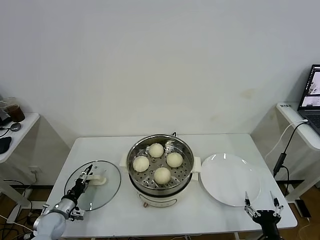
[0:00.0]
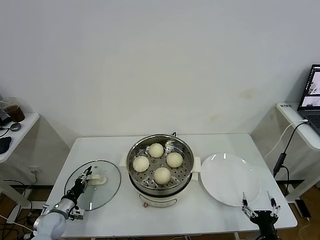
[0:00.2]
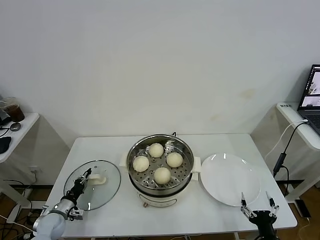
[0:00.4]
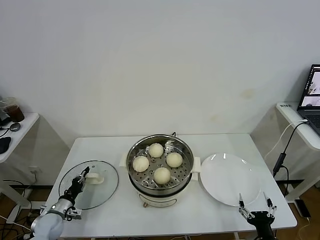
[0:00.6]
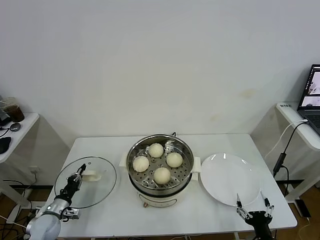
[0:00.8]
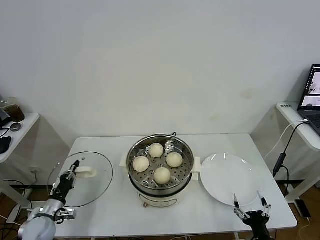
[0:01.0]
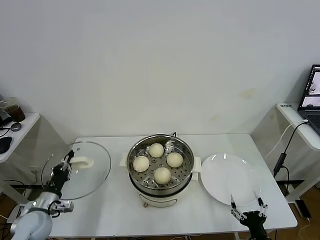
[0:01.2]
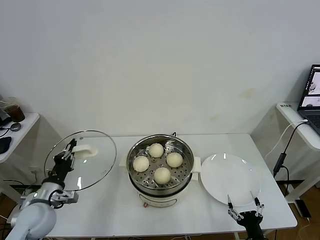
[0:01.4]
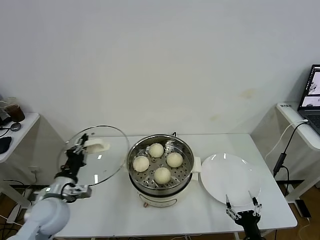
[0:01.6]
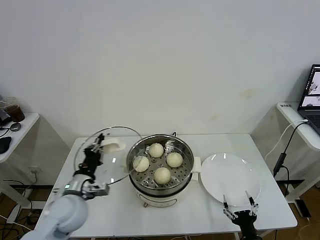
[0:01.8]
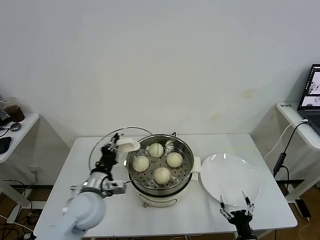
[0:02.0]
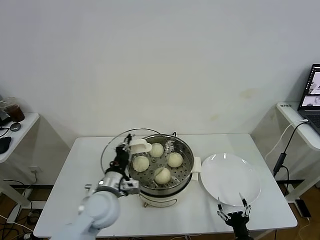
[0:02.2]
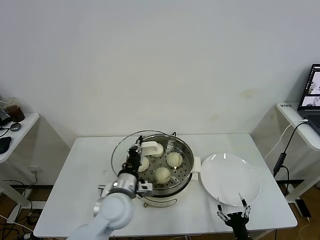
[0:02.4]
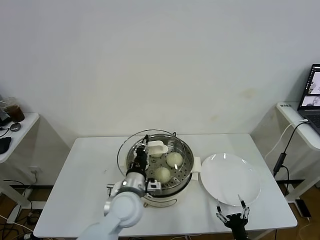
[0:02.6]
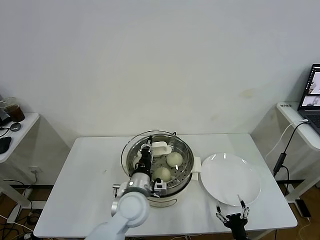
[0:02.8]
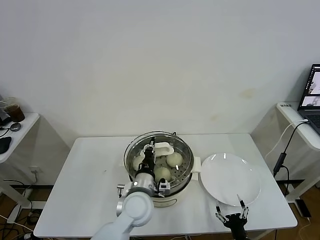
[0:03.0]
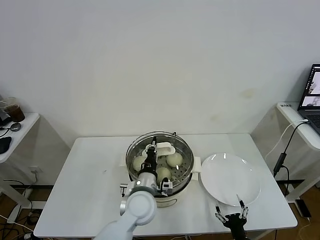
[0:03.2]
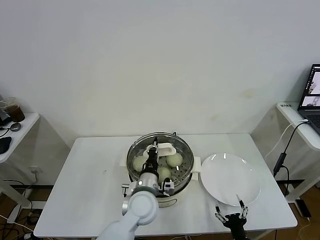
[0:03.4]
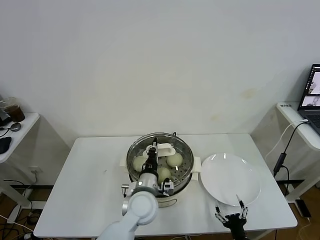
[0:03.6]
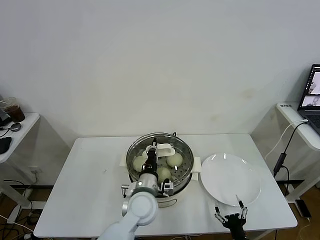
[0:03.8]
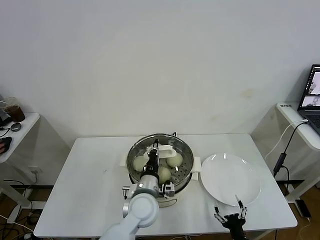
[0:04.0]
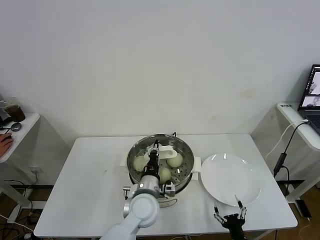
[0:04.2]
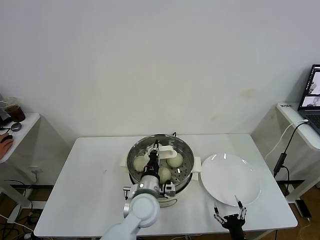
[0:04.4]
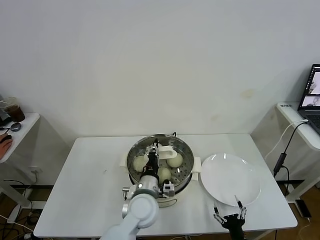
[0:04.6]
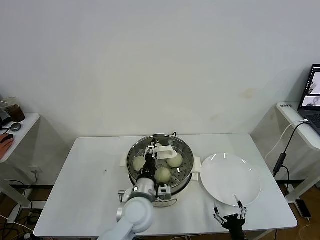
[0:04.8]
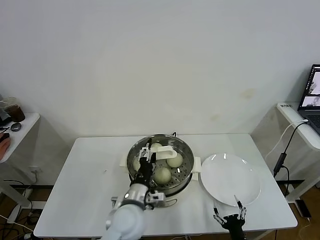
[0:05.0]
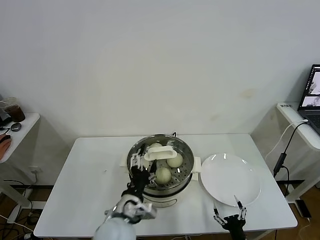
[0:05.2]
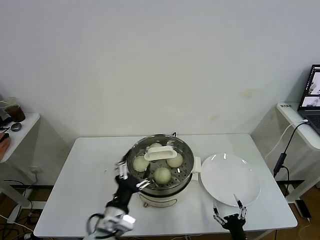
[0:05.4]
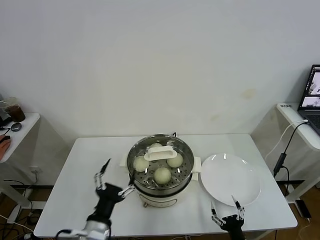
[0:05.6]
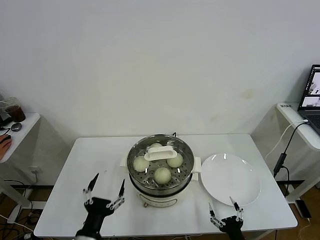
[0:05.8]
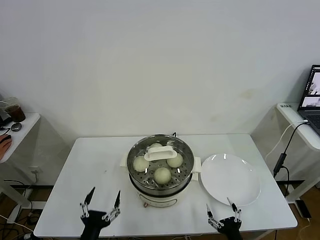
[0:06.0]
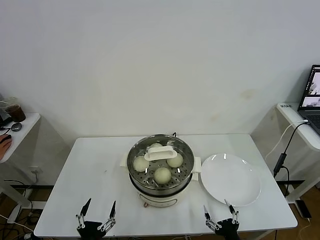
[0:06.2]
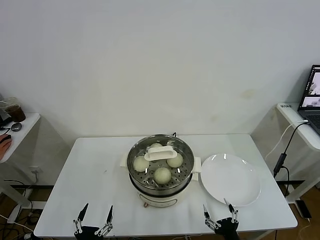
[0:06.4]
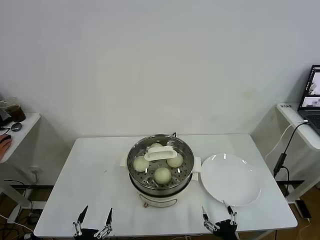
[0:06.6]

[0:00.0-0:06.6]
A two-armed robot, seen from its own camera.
Task of the whole recording: take steamed baozi put them in steamer.
Step, 0:00.8 to 0:05.0: Place the pot lid on the steamer with left gripper.
0:00.0 to 0:01.6: The left gripper moves upward and to the right, approximately 25 cm, and closes its fingers.
0:01.6 to 0:03.2: The left gripper heads to the right, covering some 25 cm, while the right gripper ends up about 5 cm from where it was.
0:03.2 to 0:05.0: The left gripper opens up.
0:05.0 to 0:06.6: The left gripper travels backward, to the left and downward by roughly 30 cm; the right gripper ends up about 5 cm from where it was.

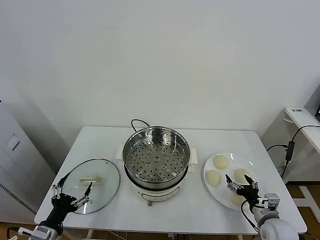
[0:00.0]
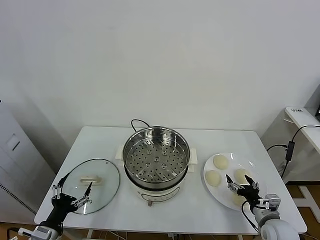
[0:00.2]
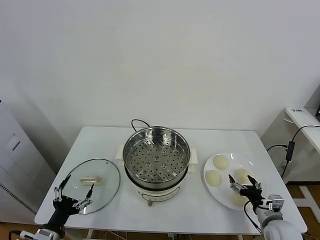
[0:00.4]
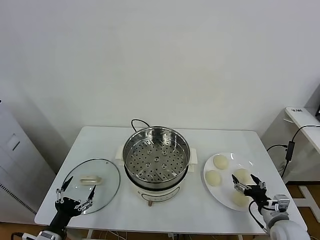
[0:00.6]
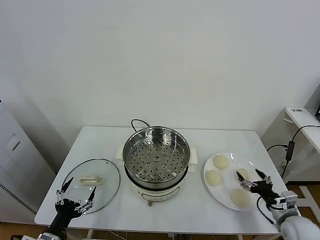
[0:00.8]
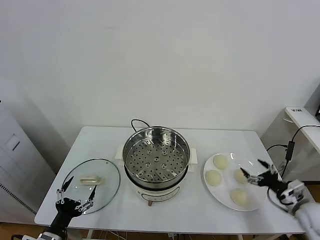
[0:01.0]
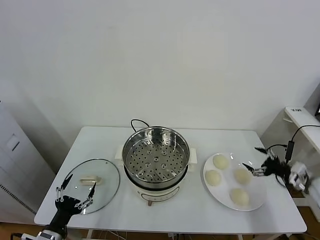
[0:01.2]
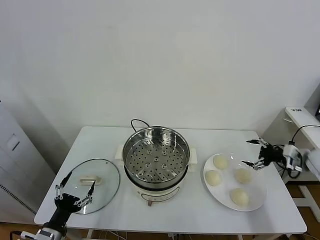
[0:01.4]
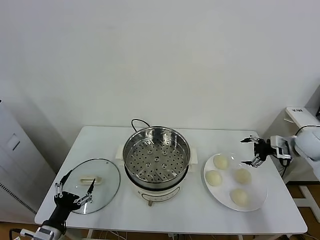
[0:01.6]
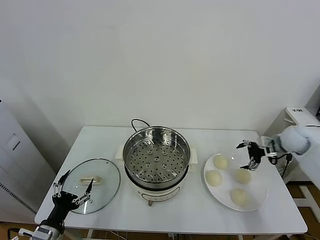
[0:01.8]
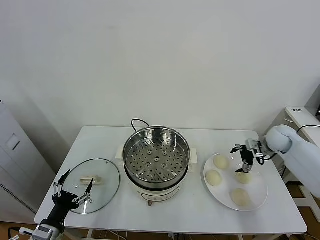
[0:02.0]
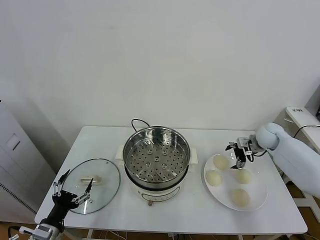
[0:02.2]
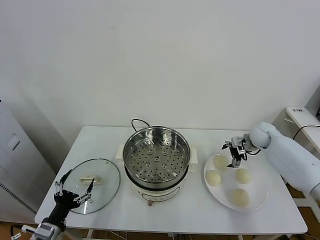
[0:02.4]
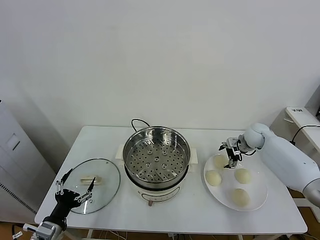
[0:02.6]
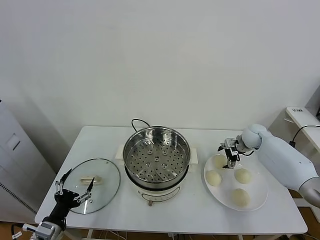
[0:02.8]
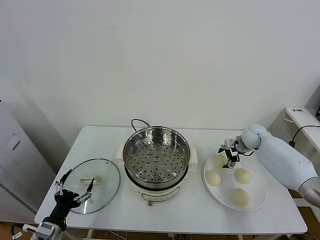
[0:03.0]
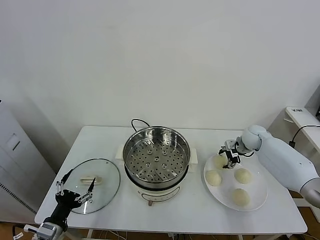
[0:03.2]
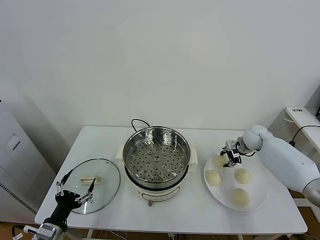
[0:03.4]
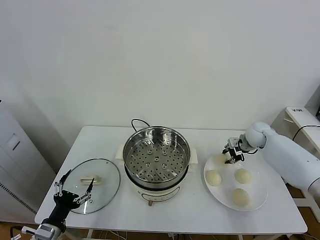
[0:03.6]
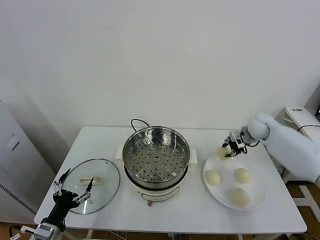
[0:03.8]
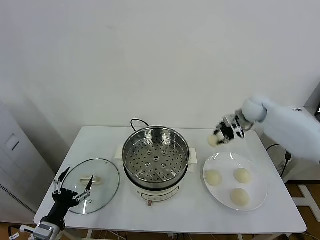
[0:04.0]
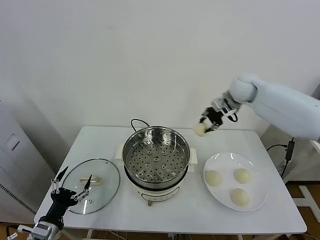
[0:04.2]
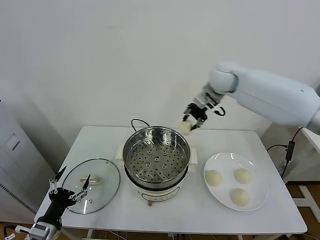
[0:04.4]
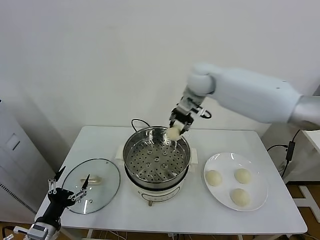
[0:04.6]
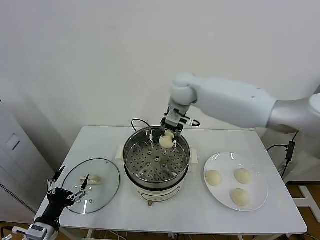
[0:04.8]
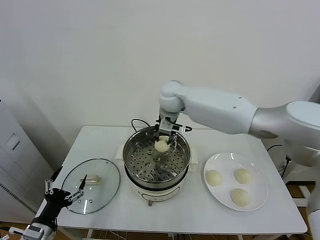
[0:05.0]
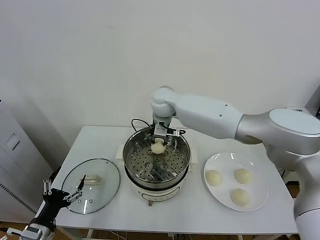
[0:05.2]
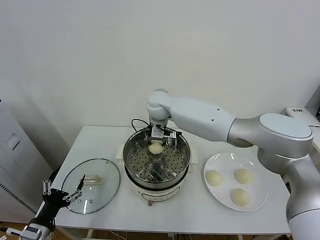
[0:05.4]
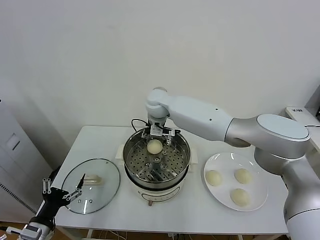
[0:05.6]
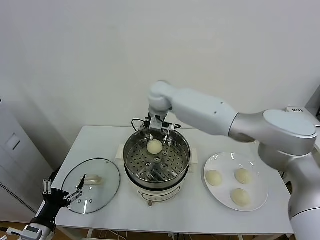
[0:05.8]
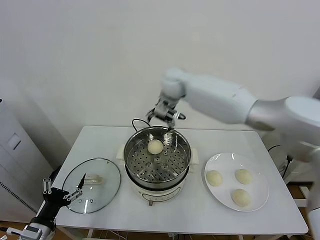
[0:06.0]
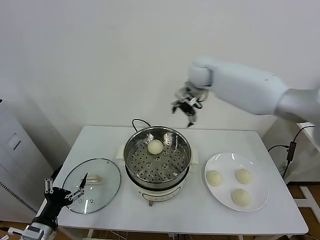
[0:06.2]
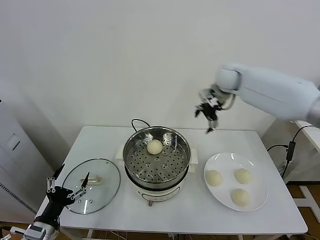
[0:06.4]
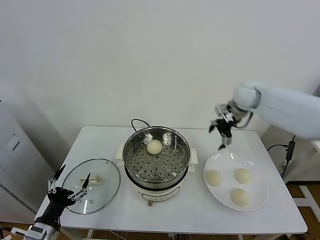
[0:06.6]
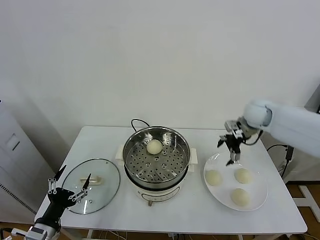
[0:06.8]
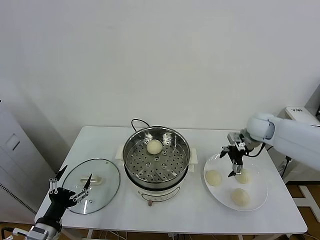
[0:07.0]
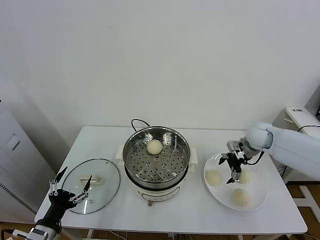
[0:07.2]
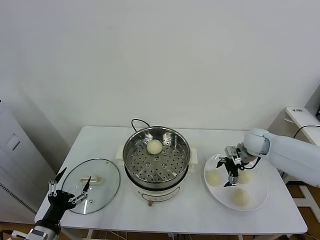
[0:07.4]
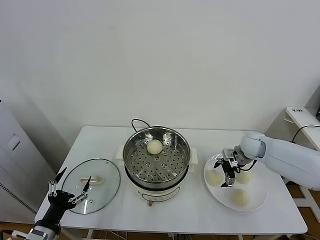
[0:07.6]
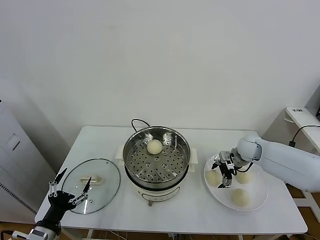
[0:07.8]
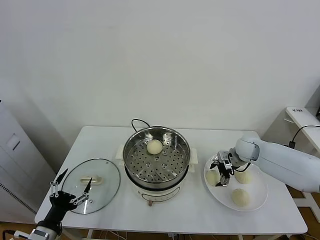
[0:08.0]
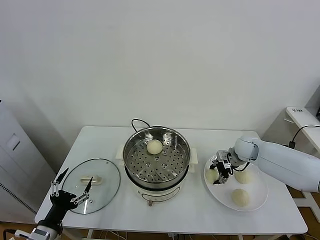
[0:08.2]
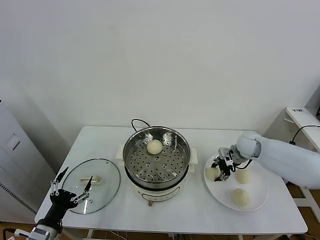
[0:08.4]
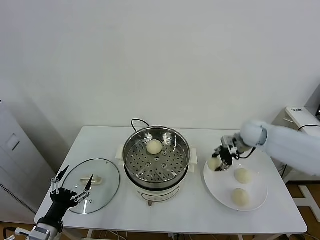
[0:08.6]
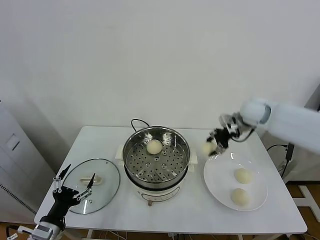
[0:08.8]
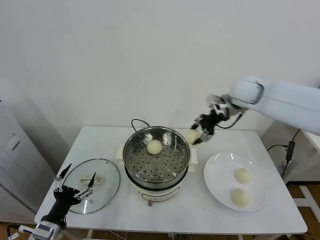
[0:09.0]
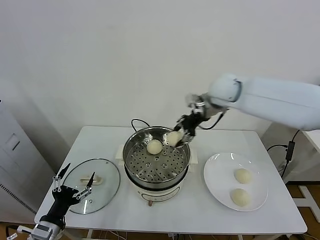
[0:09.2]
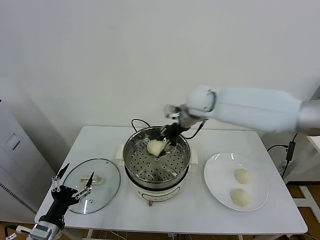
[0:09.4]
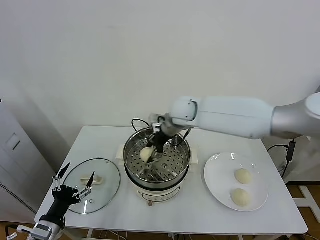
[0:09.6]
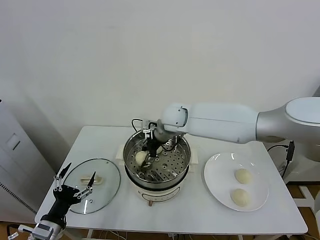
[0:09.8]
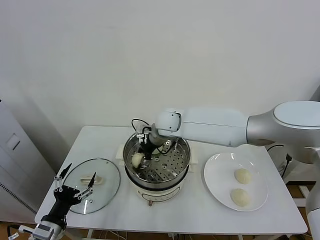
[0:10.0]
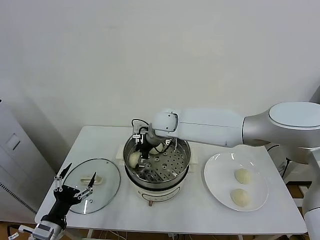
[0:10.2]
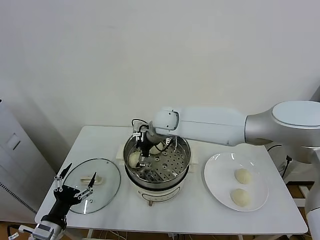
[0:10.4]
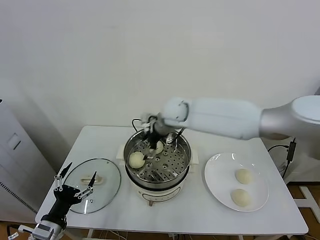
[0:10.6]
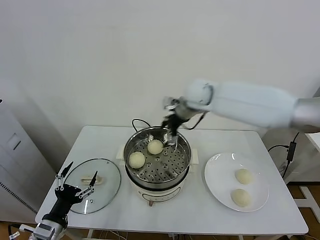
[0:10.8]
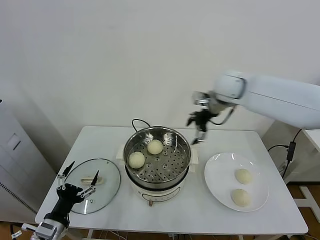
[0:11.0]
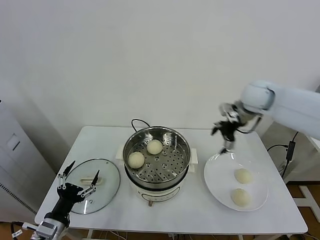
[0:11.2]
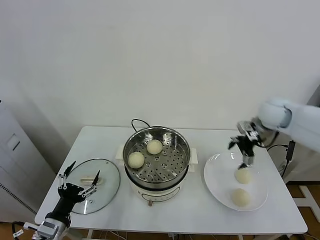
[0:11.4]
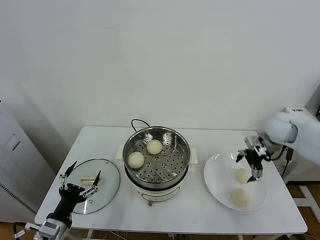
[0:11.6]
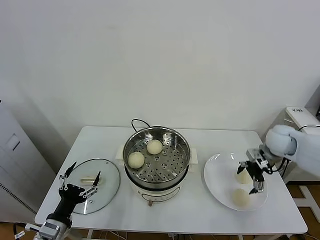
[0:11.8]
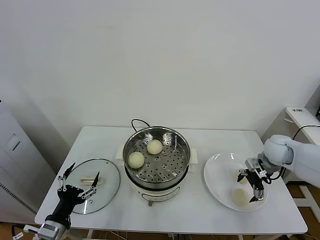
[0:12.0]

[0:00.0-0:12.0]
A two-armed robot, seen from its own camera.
Task of the whole recording: take steamed baozi put them in steamer.
Step, 0:00.0 to 0:03.2: Grasp the baozi in the plate with right gripper.
Step, 0:03.4 to 0:05.6: Place the baozi on the steamer with right gripper.
Step, 0:05.8 to 0:08.2: Grasp the baozi in the plate with right gripper.
Step, 0:08.4 to 0:10.4: Place the baozi on the steamer with right gripper.
0:01.6 to 0:03.0: The right gripper shifts roughly 15 cm to the left, forward and downward.
0:03.0 to 0:04.4: The right gripper moves upward and to the left, roughly 35 cm, and closes up.
0:04.4 to 0:06.0: The right gripper shifts some 5 cm to the left, and opens up.
0:06.0 to 0:07.6: The right gripper travels to the right and downward by about 35 cm.
0:07.6 to 0:09.0: The right gripper goes roughly 25 cm upward and to the left, and closes up.
0:09.0 to 0:10.4: The right gripper heads to the left and downward, covering roughly 25 cm, and opens up.
0:10.4 to 0:12.0: The right gripper travels to the right by some 40 cm.

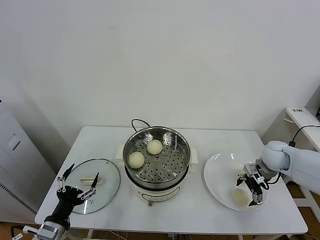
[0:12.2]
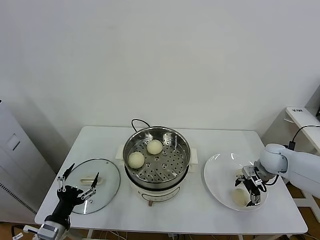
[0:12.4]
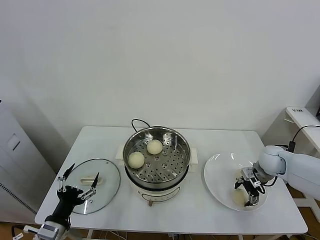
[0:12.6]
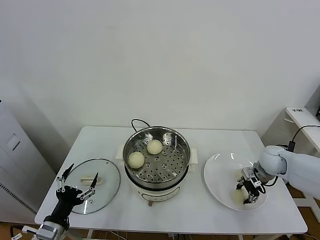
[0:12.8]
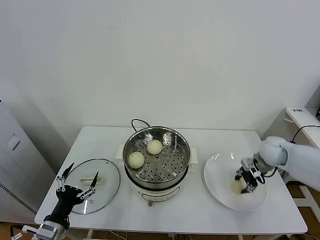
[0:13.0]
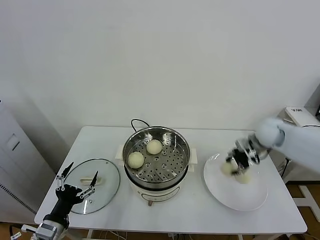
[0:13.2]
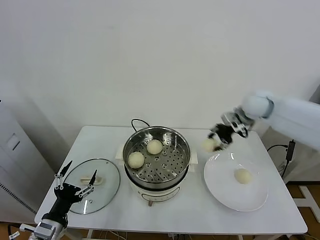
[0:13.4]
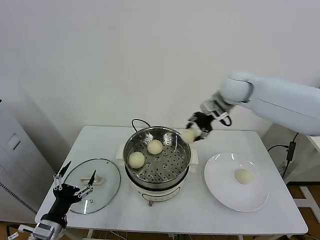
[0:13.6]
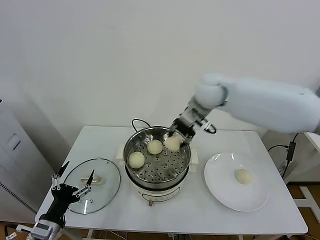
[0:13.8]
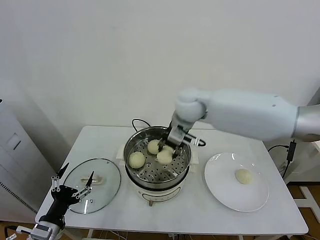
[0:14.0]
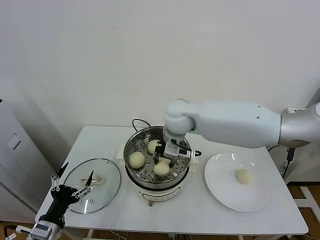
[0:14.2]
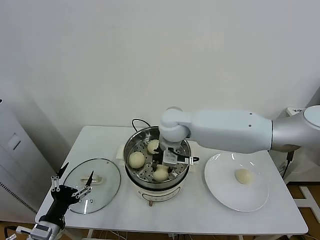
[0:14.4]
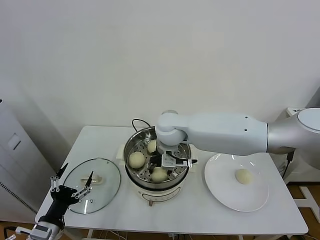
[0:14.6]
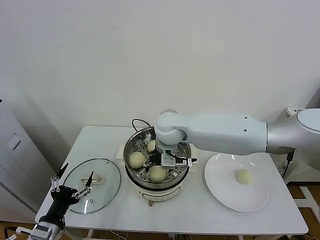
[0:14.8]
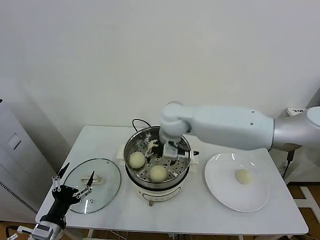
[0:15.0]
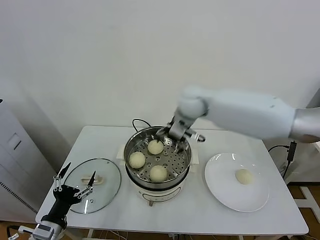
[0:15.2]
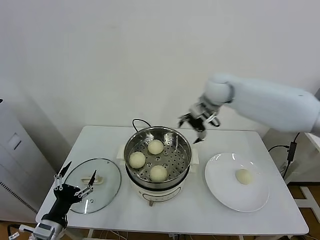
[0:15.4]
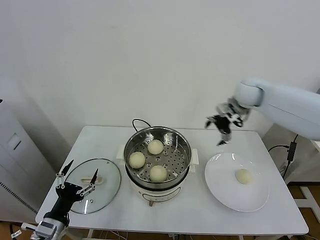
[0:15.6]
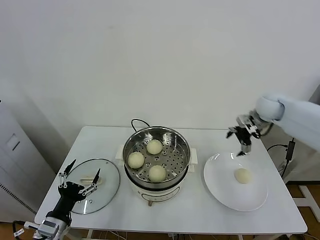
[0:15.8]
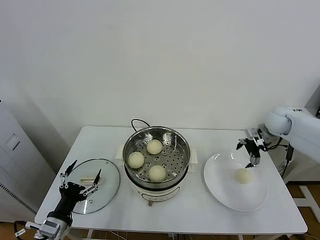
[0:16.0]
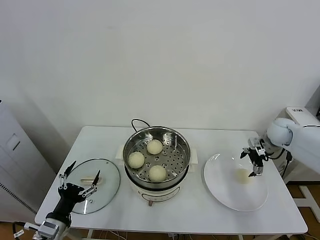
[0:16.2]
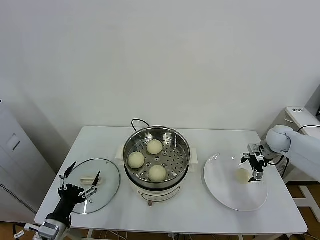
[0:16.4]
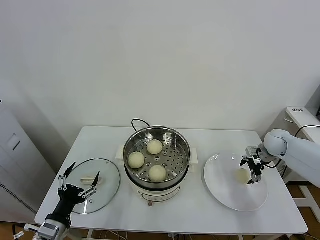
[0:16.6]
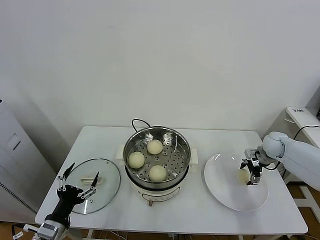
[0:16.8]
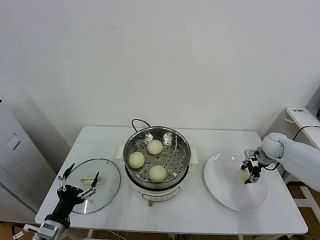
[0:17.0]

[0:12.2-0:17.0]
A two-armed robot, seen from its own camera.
Task of the whole recording: take steamed baozi put them in steamer.
Step, 0:13.0 to 0:15.0: Place the baozi on the steamer with right gripper.
Step, 0:15.2 to 0:17.0: Grasp the baozi in the plate with right gripper.
0:12.2 to 0:13.8: The right gripper goes some 35 cm to the left and upward, and closes.
0:13.8 to 0:15.4: The right gripper moves to the right, some 5 cm, and opens up.
0:15.4 to 0:17.0: The right gripper moves to the right and downward, about 35 cm, and closes up.
